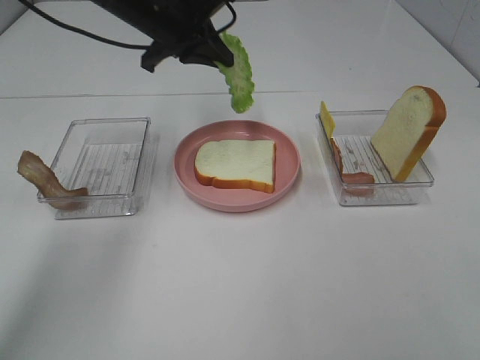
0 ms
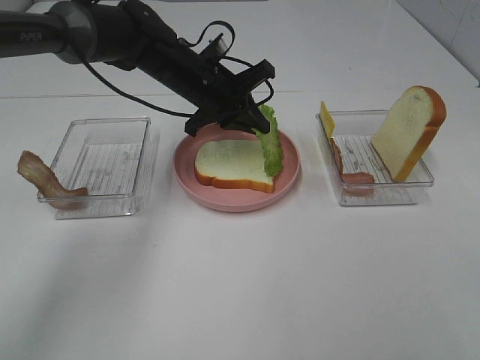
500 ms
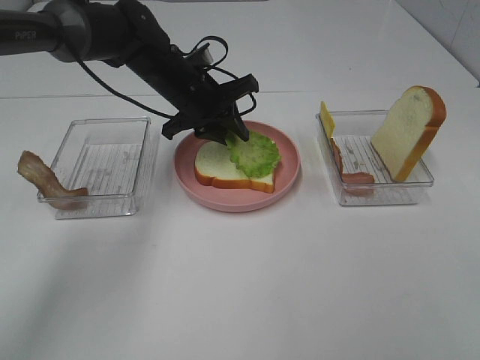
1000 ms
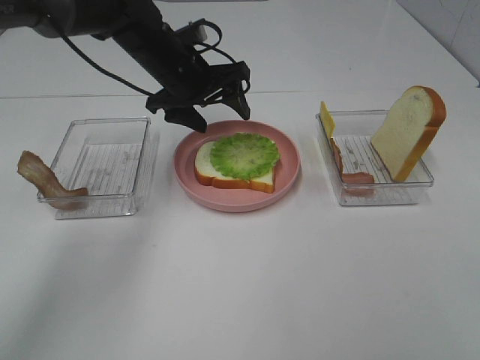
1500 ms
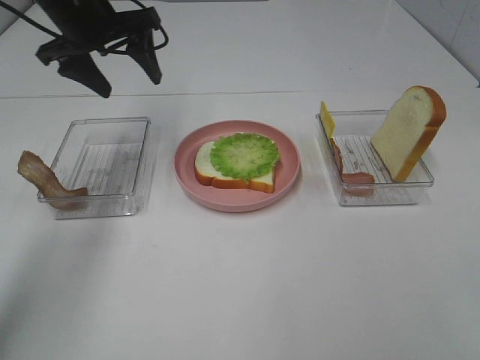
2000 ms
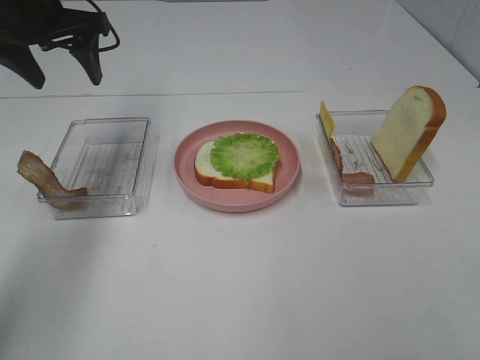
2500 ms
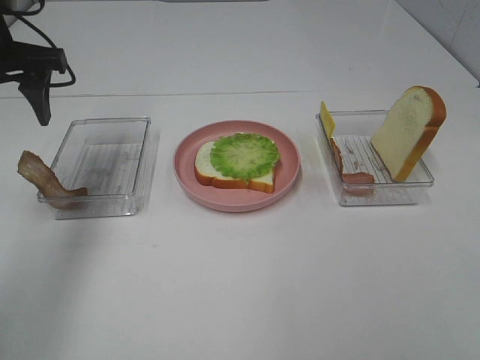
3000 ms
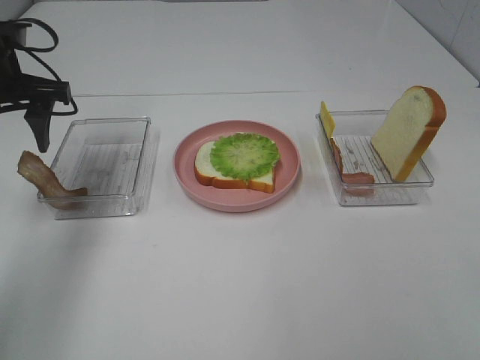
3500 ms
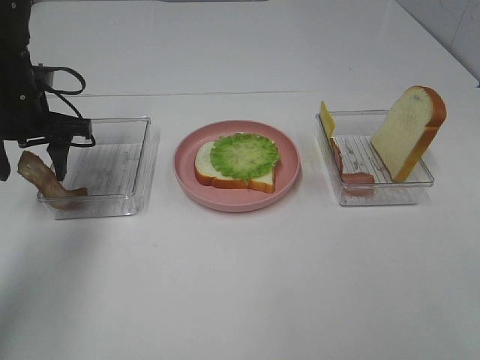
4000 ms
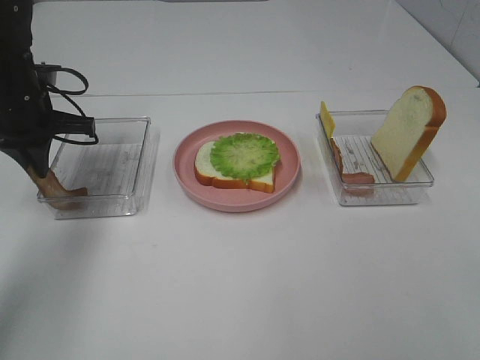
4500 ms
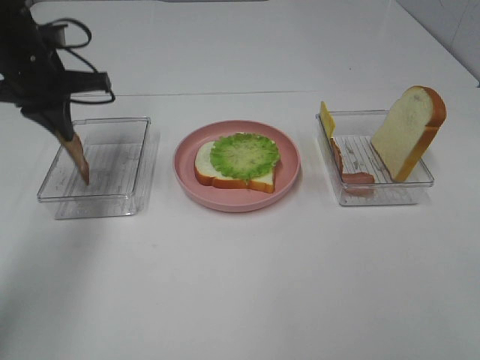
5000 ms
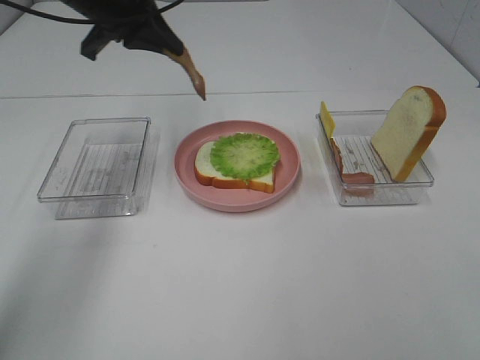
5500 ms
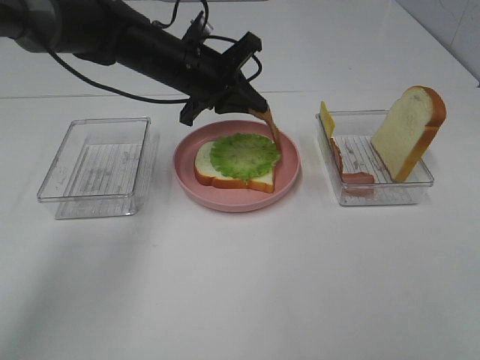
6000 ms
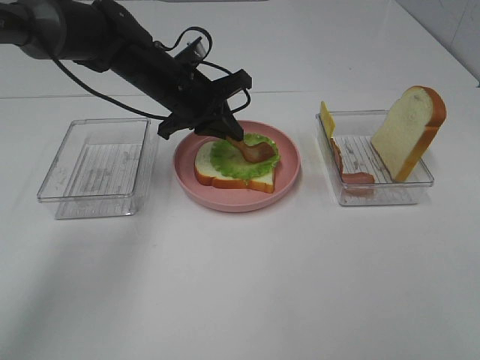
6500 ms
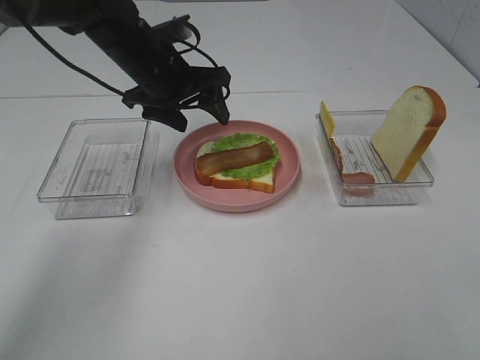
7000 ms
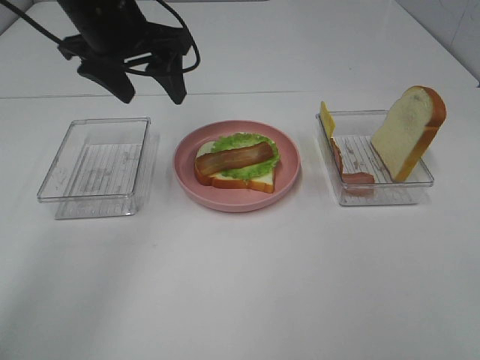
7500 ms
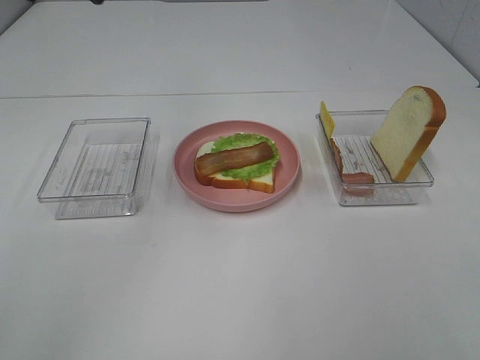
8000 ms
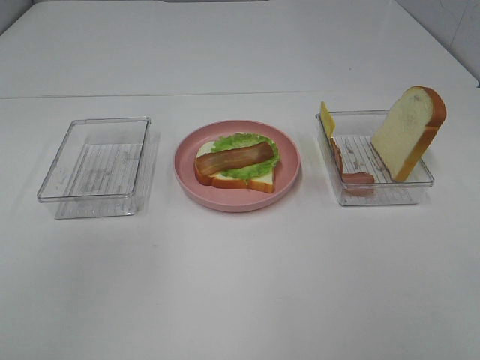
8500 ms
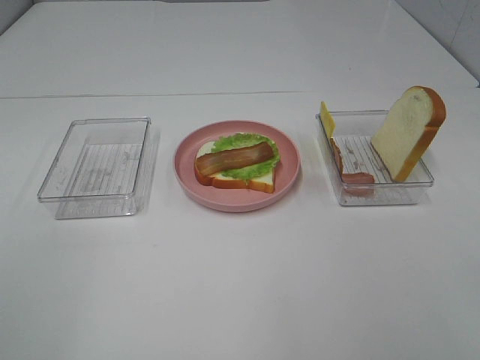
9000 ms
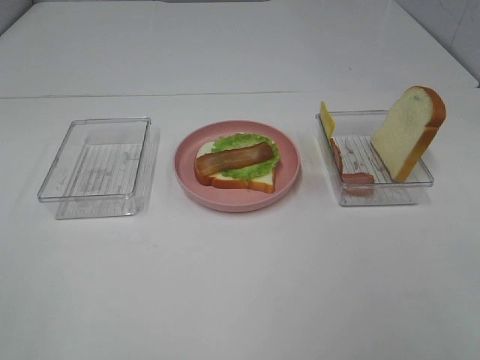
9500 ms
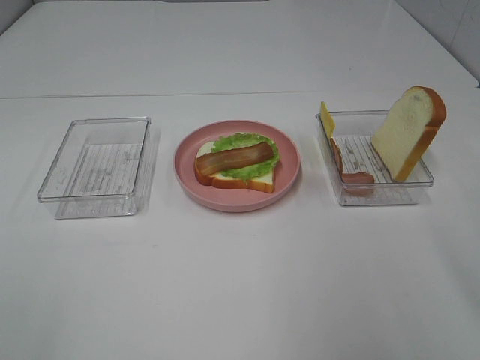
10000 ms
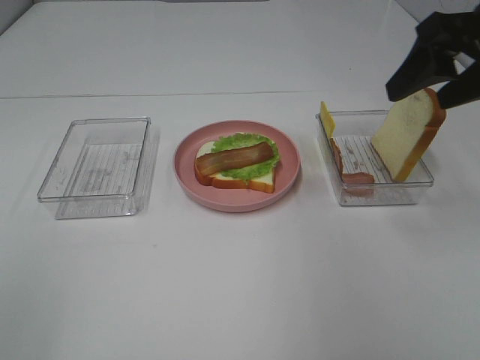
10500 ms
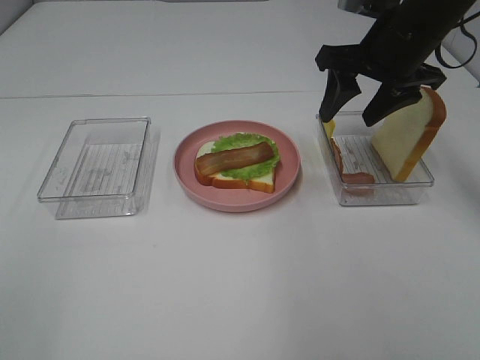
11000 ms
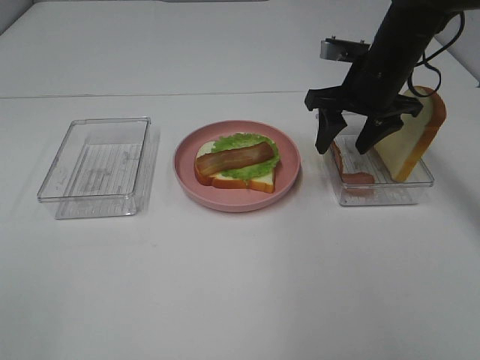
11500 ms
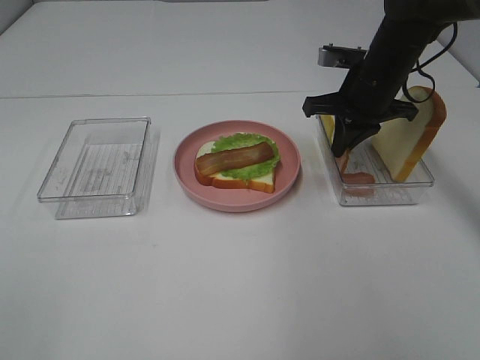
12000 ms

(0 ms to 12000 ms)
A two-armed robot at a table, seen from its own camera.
Task of the whole recording: Make sandwiches.
Step, 0 ms - 1500 ms: Left hand:place the lettuce slice on the bread slice.
Step, 2000 ms - 4500 ms: Left hand:grab the bacon.
Step, 5000 ms - 7000 ms: Left hand:place bacon on lettuce slice.
0 ms - 2000 ms: The left gripper goes approximately 10 cm to the left, and opens its fingers.
2000 ms - 4000 ms: The left gripper goes about 10 cm downward and to the left.
4000 ms - 6000 ms: The left gripper heads to the right, covering roughly 20 cm, and closes up.
6000 ms - 8000 ms: The left gripper goes about 30 cm upward, backward and to the left, and opens its fingers.
10000 ms - 12000 ms: The right gripper moves forward and downward, roughly 30 cm, and closes its fingers.

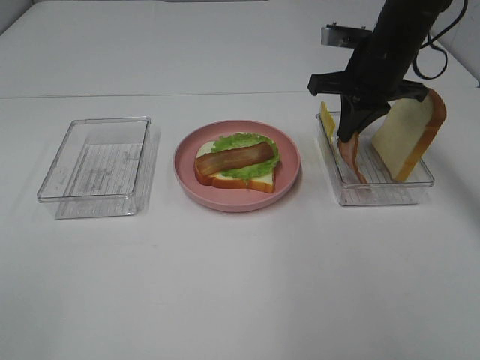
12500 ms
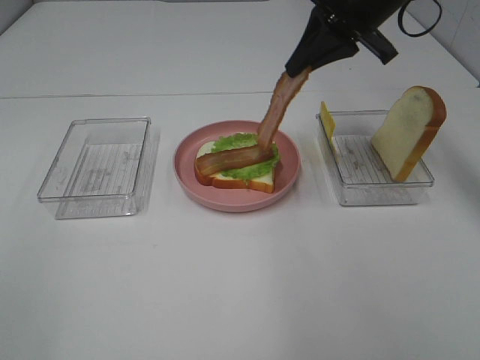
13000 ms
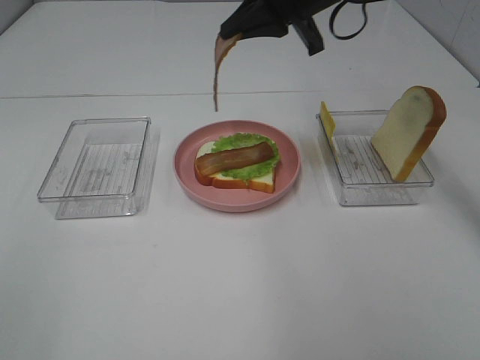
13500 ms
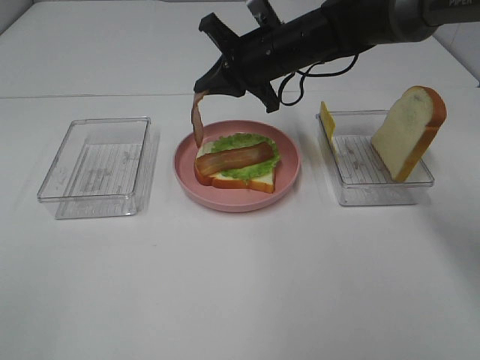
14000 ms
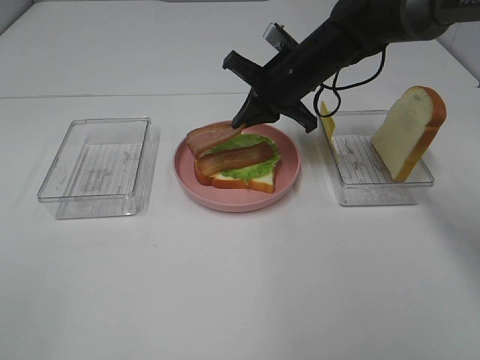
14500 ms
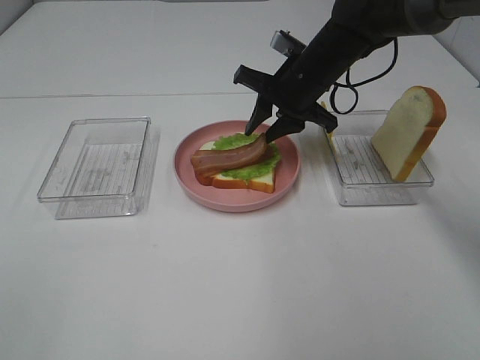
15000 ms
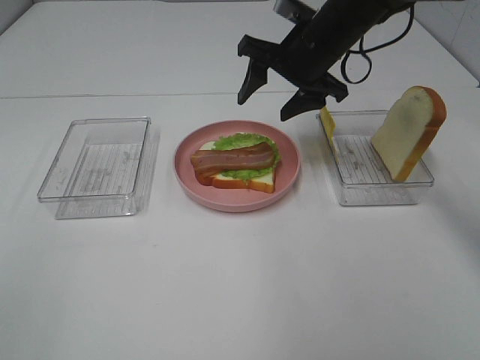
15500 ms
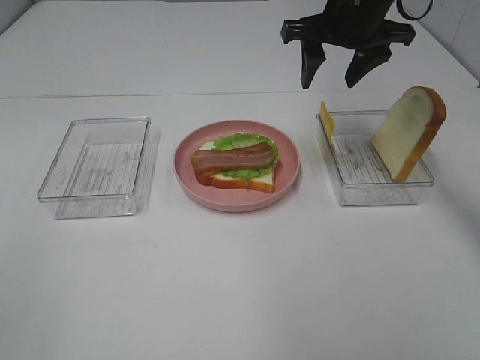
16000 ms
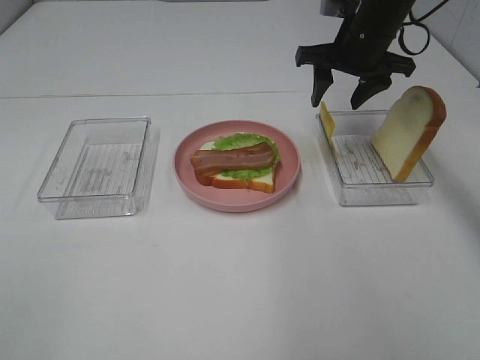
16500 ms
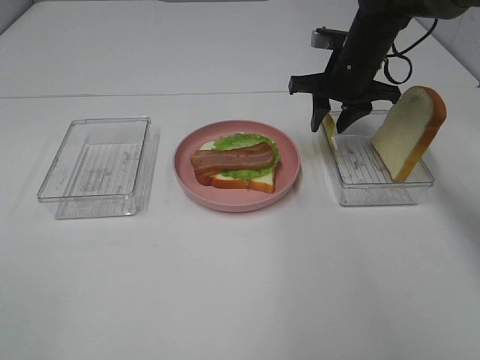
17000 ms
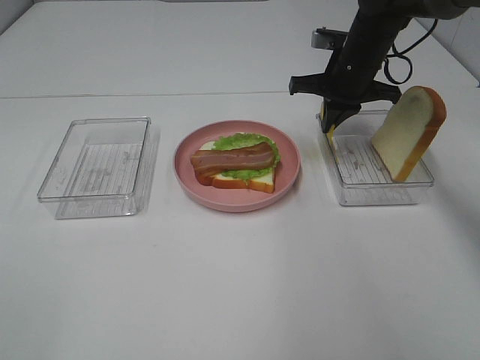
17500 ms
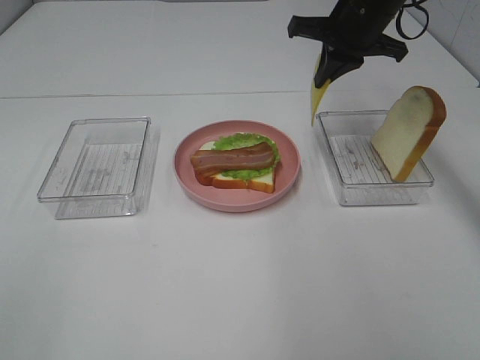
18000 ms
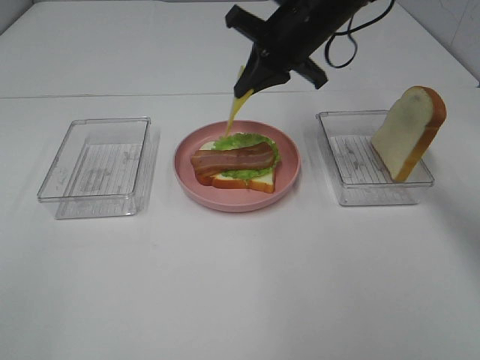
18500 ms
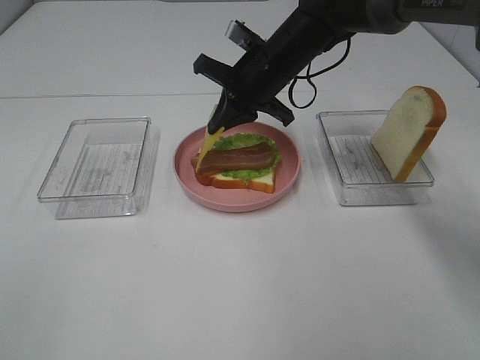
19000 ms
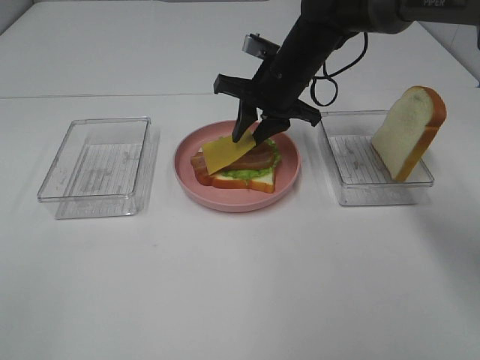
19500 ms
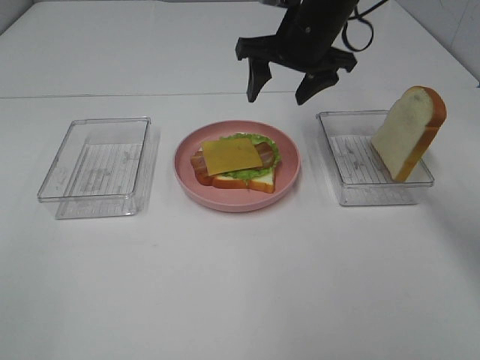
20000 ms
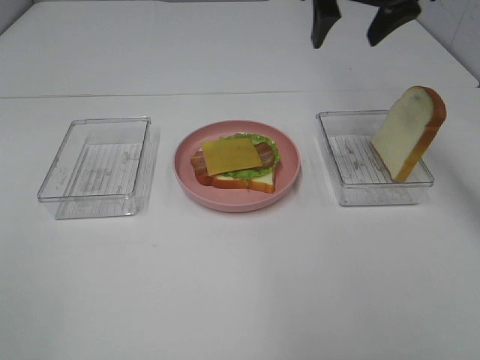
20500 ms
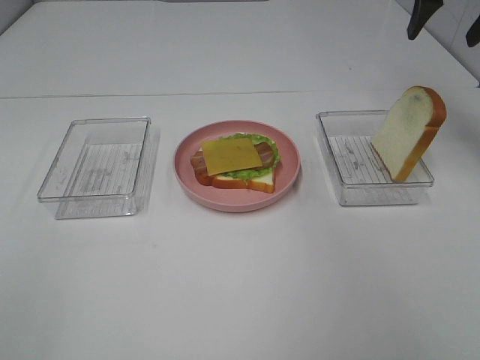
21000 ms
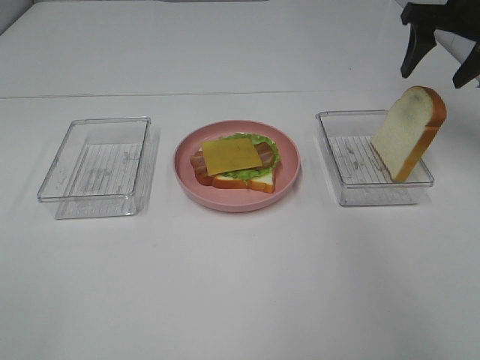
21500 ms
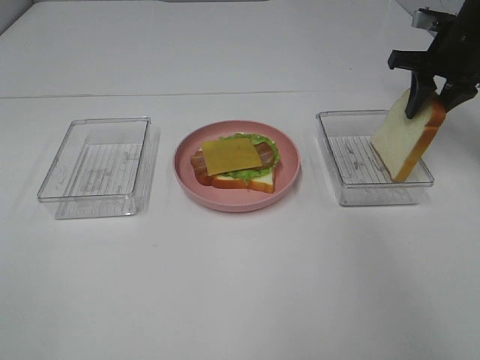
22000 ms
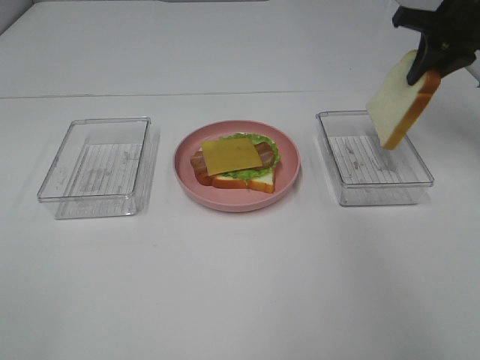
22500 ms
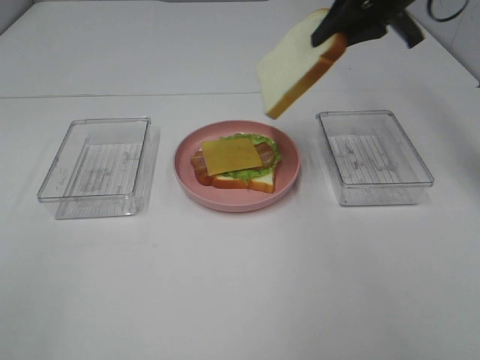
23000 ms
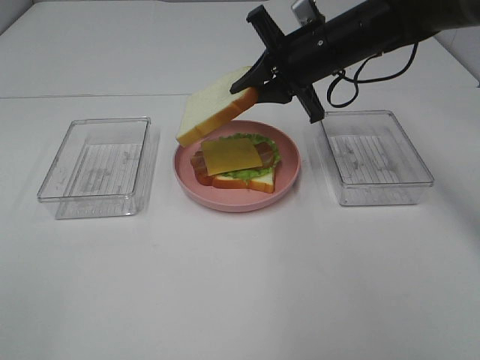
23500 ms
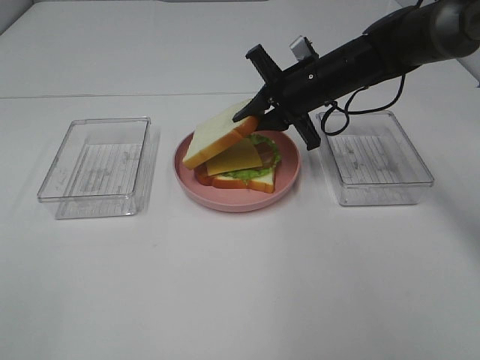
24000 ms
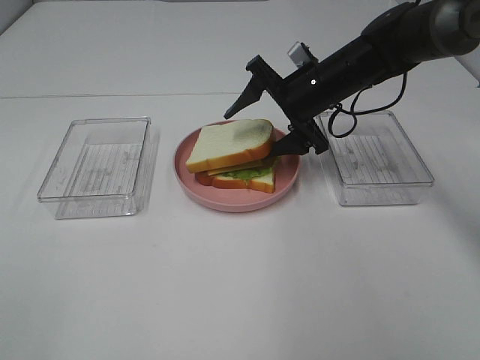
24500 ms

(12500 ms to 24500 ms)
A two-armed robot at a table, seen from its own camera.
Task of the whole recording: Make sandwiches.
Step, 12500 ms - 15000 ms: Right hand:place bacon on bacon.
Step, 15500 ms - 17500 ms: Right hand:grab the cheese slice.
Step, 18000 ms - 20000 ms: Right hand:place the cheese slice on top of the bacon.
Step, 20500 ms - 22000 ms: Right hand:grab the bread slice.
12500 ms - 14500 ms: The right gripper moves to the left and downward, roughly 10 cm.
14500 ms - 16500 ms: The right gripper moves to the right and upward, approximately 10 cm, and opens.
16500 ms - 18500 ms: The right gripper goes about 10 cm to the left, reaches roughly 5 cm downward, then returns, and closes up.
18500 ms - 20500 ms: The right gripper moves upward and to the right, approximately 10 cm, and opens up.
20500 ms - 22500 ms: The right gripper heads to the right and downward, covering some 15 cm, and closes up.
22500 ms - 24500 ms: The right gripper shifts about 20 cm to the left and downward, and opens up.

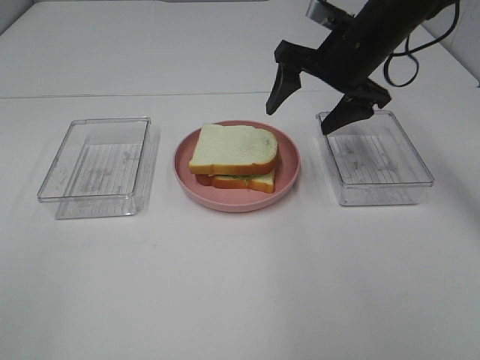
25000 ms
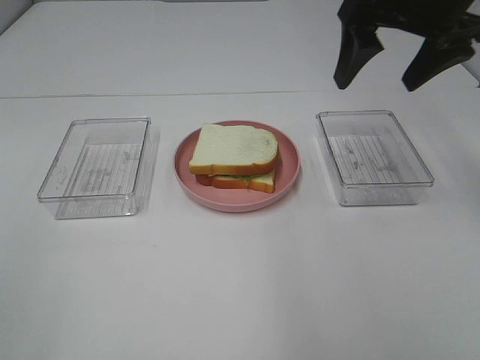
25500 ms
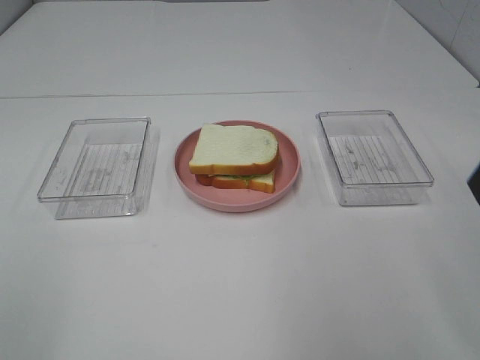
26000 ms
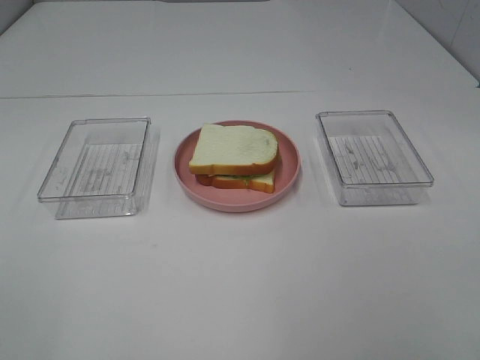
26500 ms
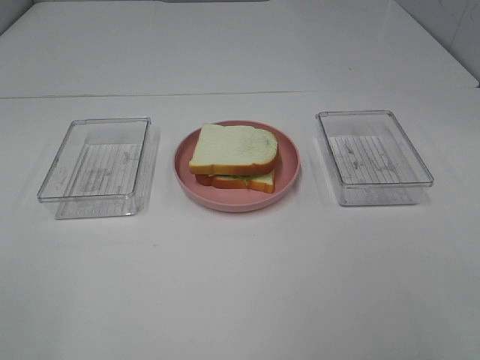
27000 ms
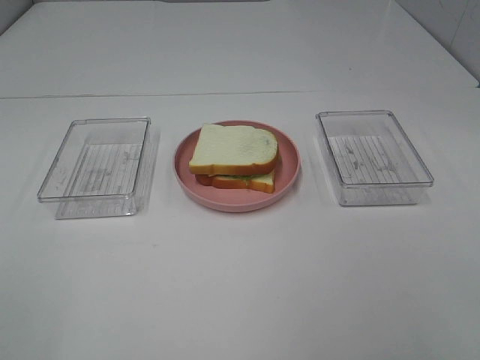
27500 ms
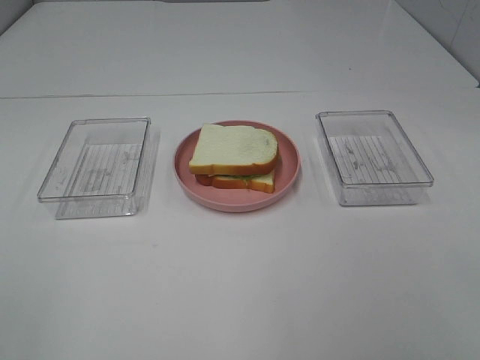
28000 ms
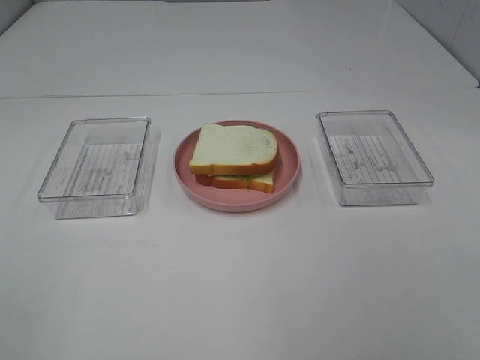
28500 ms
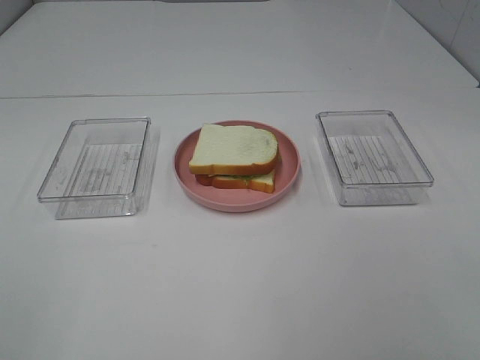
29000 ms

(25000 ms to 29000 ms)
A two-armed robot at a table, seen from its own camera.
Task of the whole recording: Make sandwiches.
25000 ms - 27000 ms: The right gripper travels backward by about 40 cm.
